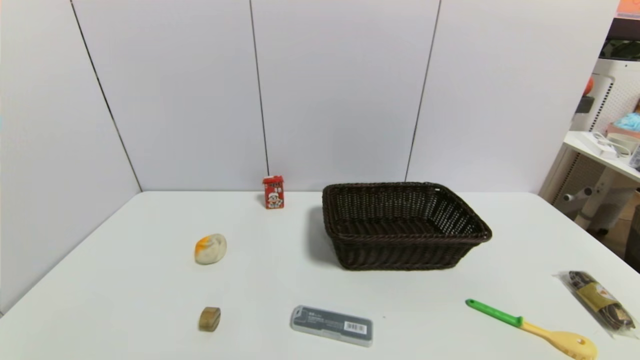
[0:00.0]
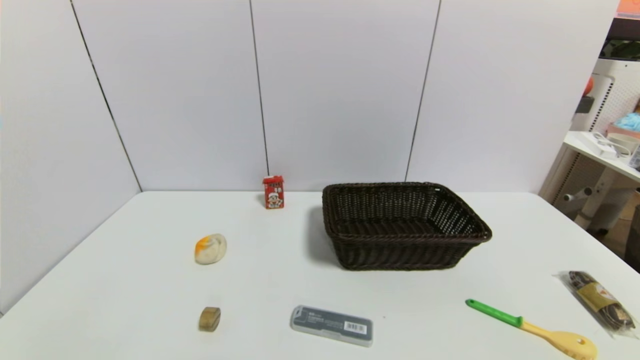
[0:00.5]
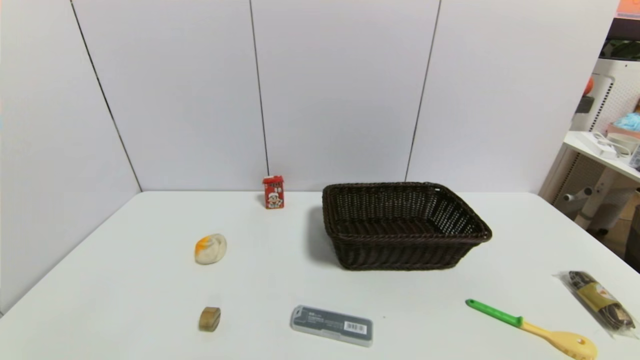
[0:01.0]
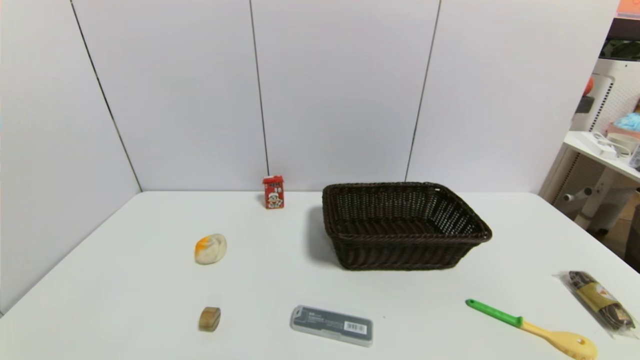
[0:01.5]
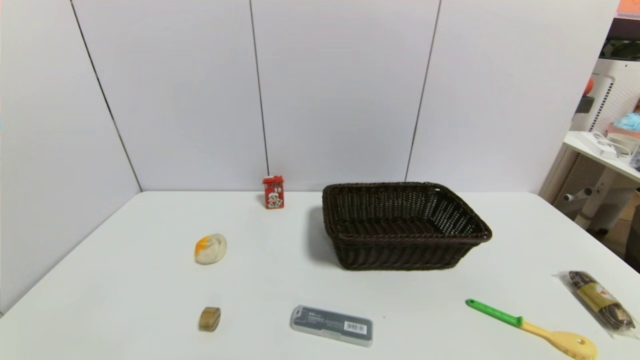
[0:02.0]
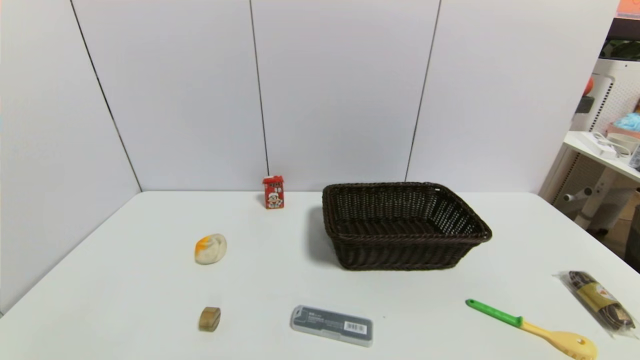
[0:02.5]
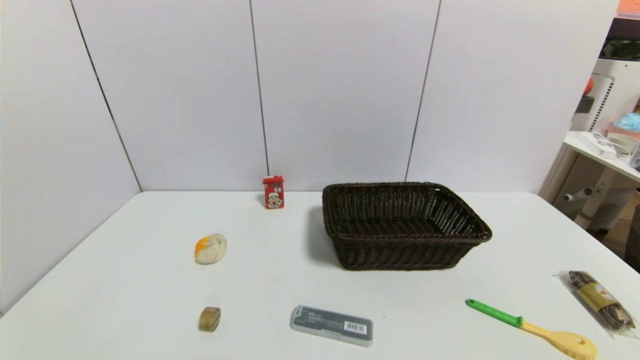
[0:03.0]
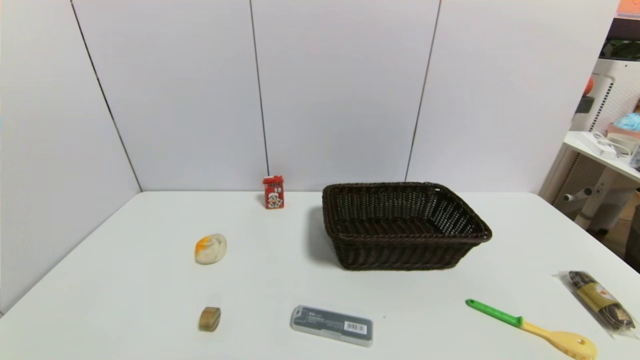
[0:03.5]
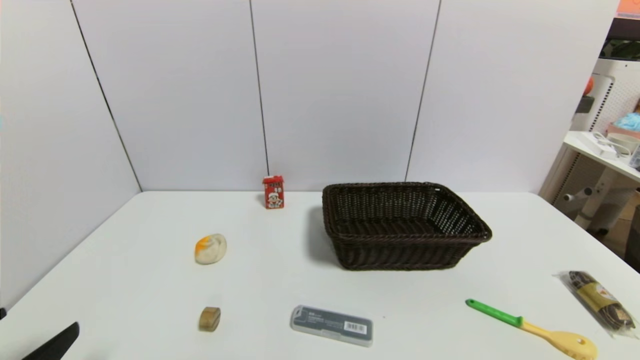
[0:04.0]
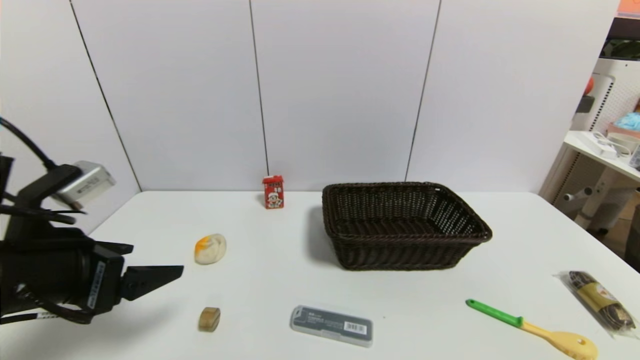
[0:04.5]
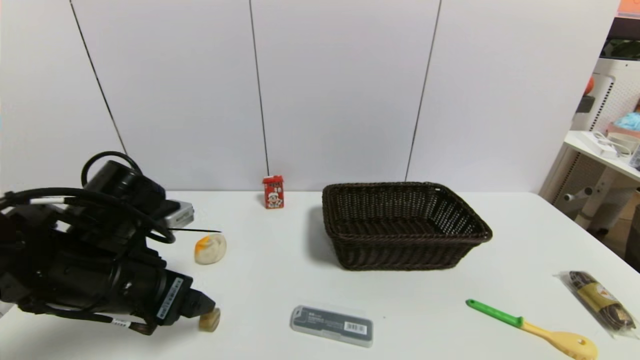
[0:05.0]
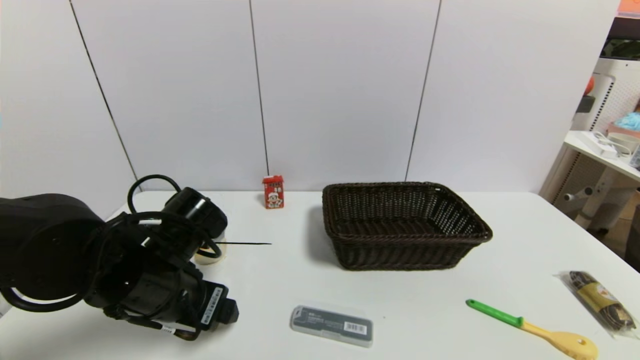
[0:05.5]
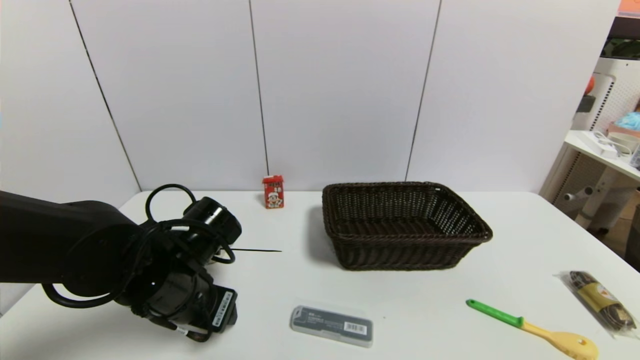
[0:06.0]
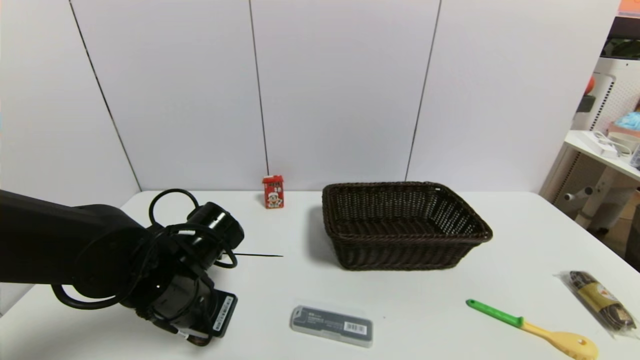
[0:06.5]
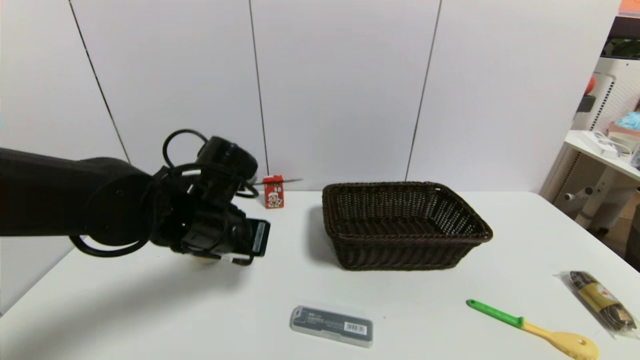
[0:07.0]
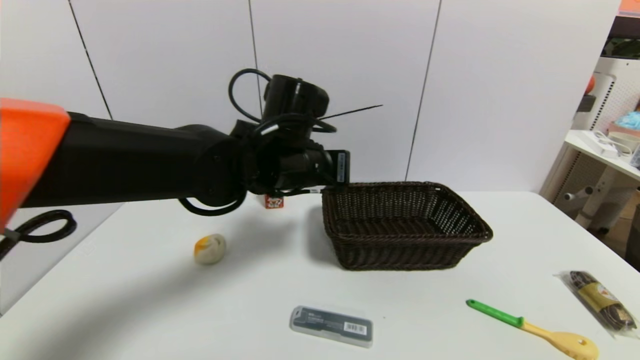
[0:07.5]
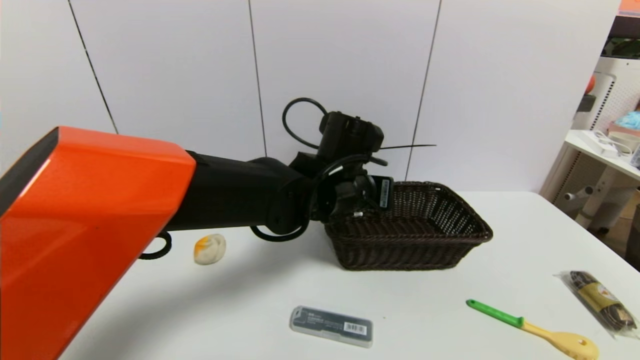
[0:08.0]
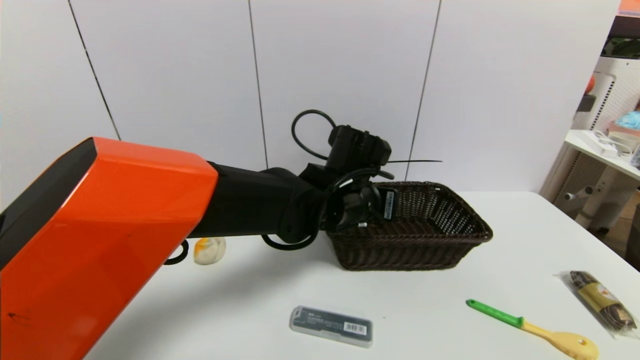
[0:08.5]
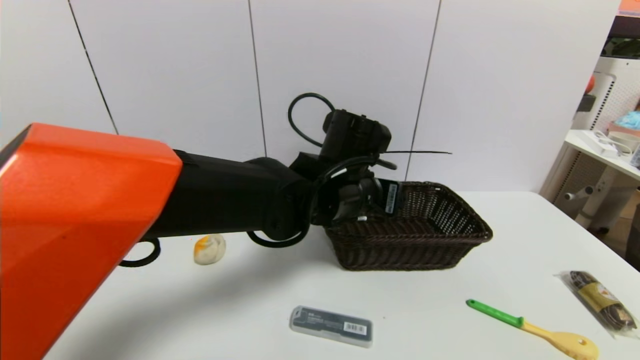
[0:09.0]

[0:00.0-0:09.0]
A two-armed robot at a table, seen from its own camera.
Task of the whole recording: use a gripper to pick the target object and place on the brown basket.
Step, 0:00.0 to 0:06.0: Grasp the round wooden block with the left gripper.
Step, 0:06.5 to 0:08.5: Place the round wooden block into the basket with the left gripper.
0:00.0 to 0:02.0: Both grippers stay about where they are.
0:02.0 to 0:04.5: The left gripper goes roughly 25 cm forward and upward.
0:04.5 to 0:07.0: The left gripper shifts roughly 15 cm to the right and forward, and closes.
0:07.0 to 0:09.0: The left gripper is displaced to the right by about 15 cm, and opens.

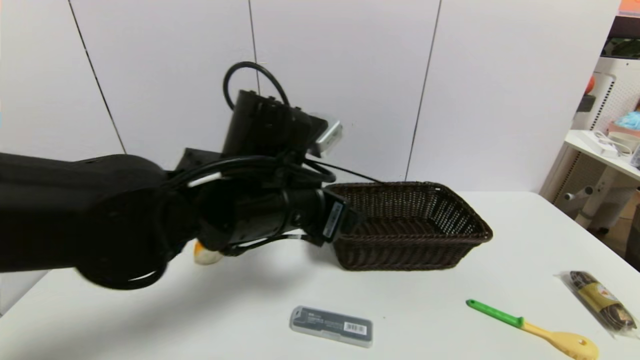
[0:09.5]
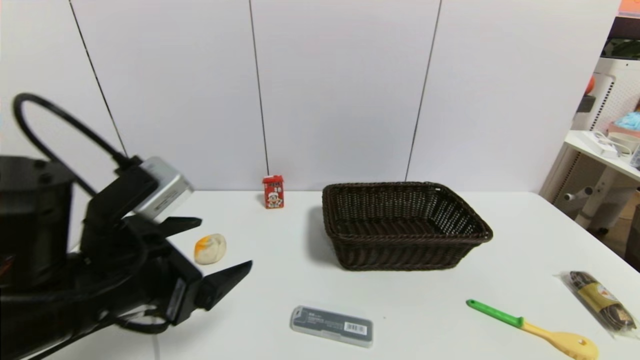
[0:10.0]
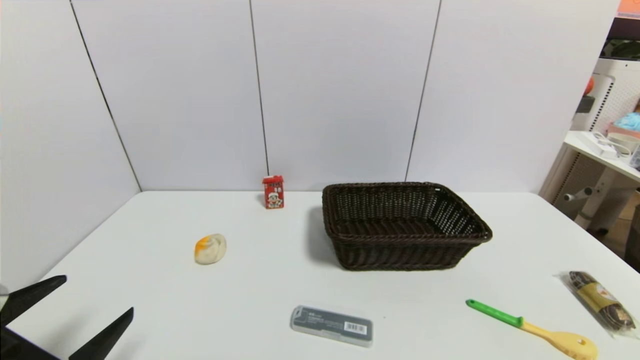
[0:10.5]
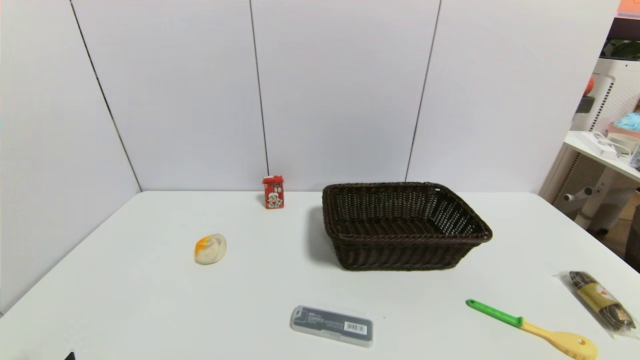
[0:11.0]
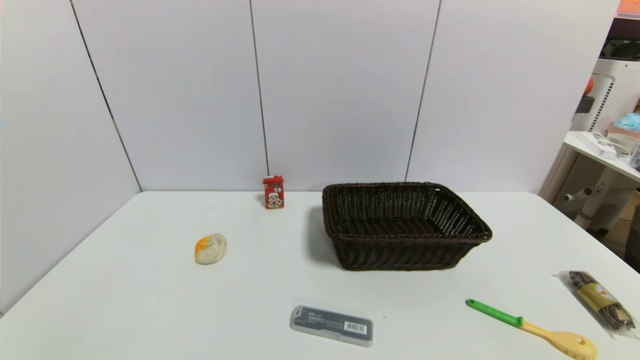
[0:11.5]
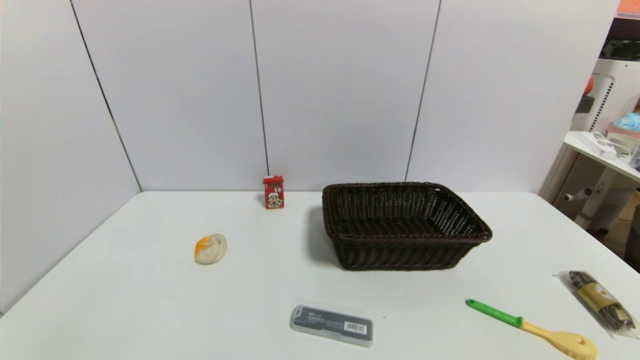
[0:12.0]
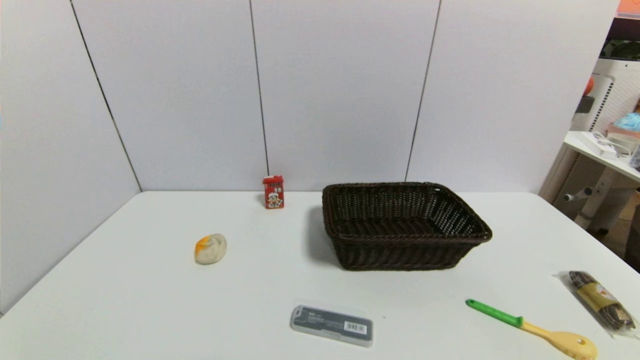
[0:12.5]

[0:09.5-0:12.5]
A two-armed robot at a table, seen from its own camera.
Task of the whole recording: use a gripper to pick the target object and place on the brown basket.
0:09.5 to 0:11.0: The left gripper is displaced to the left, backward and downward by roughly 35 cm.

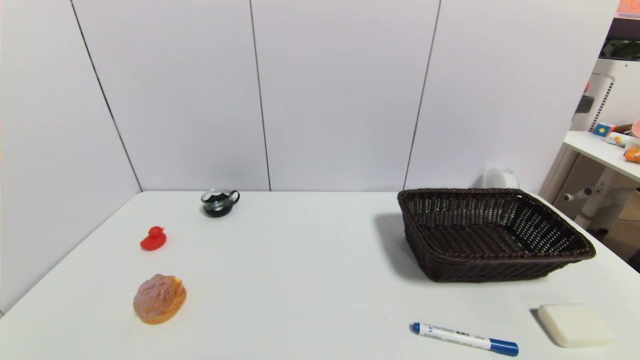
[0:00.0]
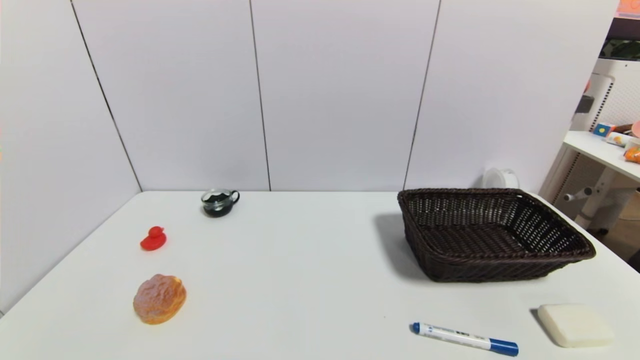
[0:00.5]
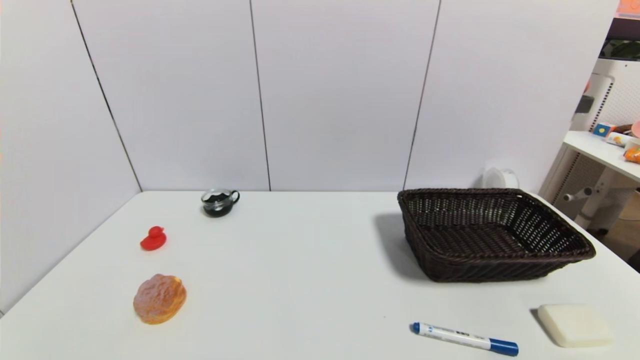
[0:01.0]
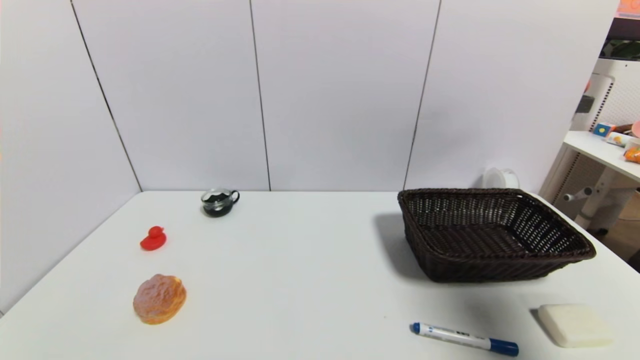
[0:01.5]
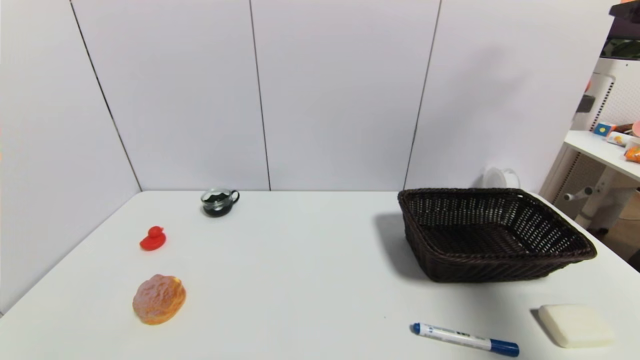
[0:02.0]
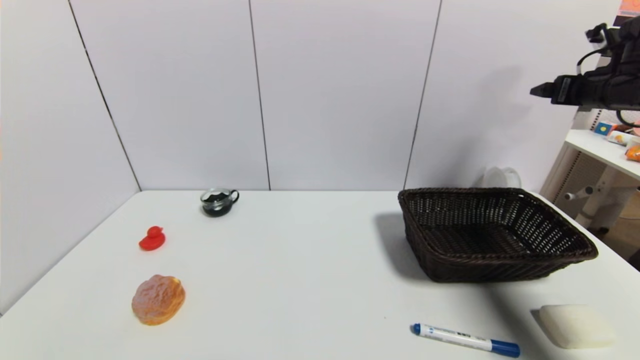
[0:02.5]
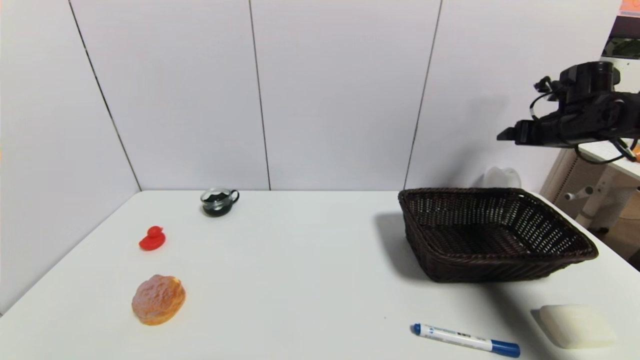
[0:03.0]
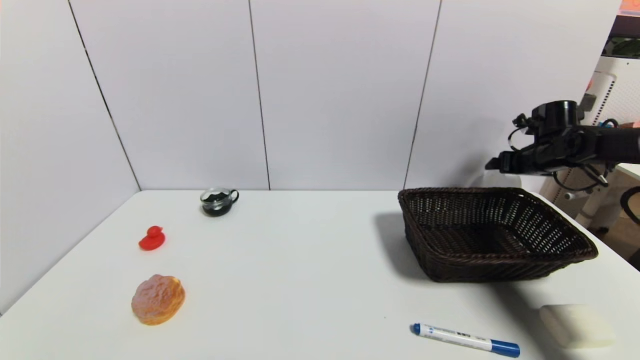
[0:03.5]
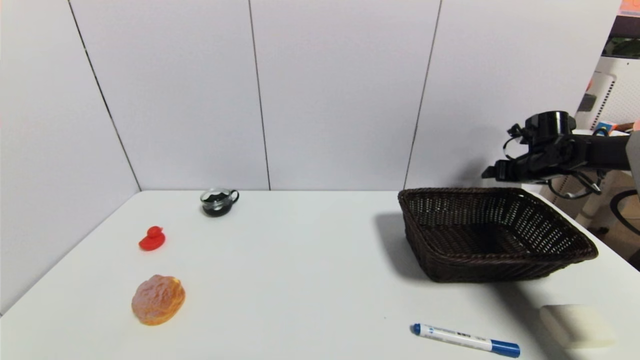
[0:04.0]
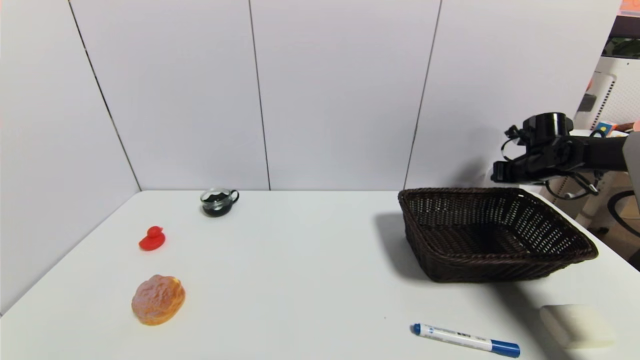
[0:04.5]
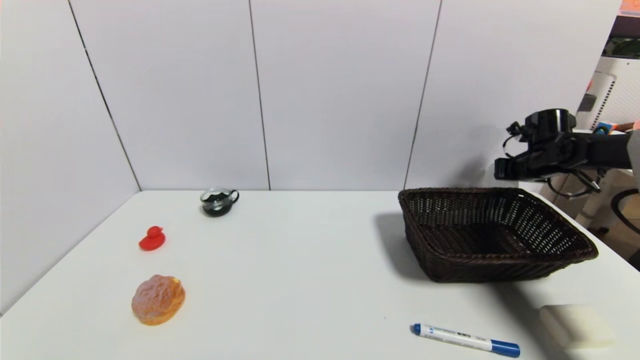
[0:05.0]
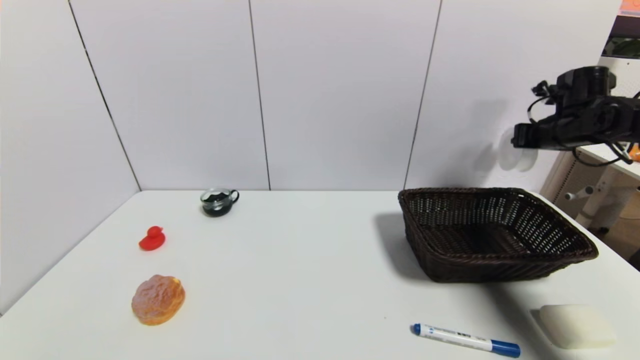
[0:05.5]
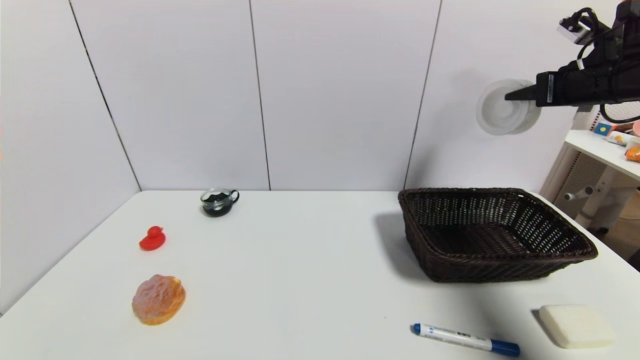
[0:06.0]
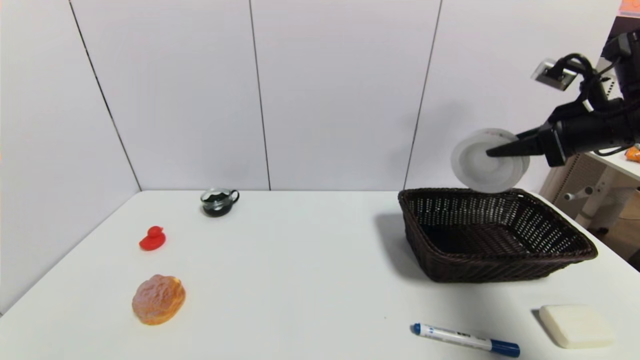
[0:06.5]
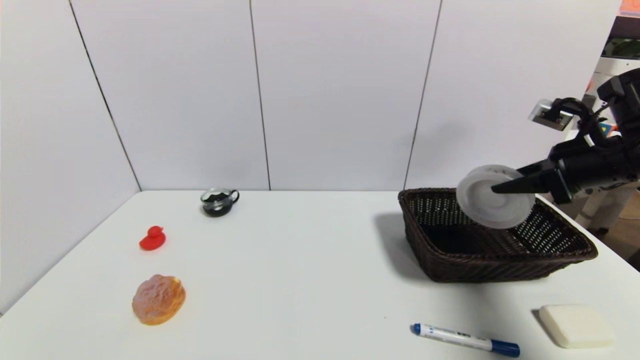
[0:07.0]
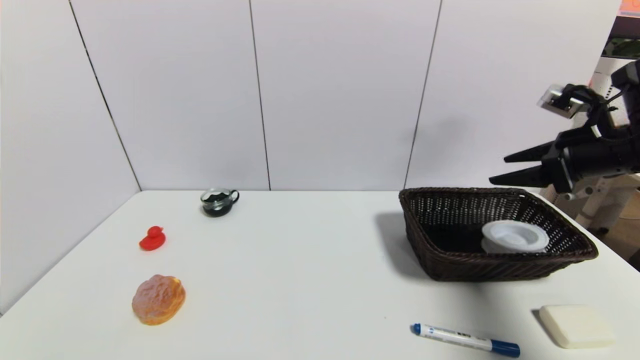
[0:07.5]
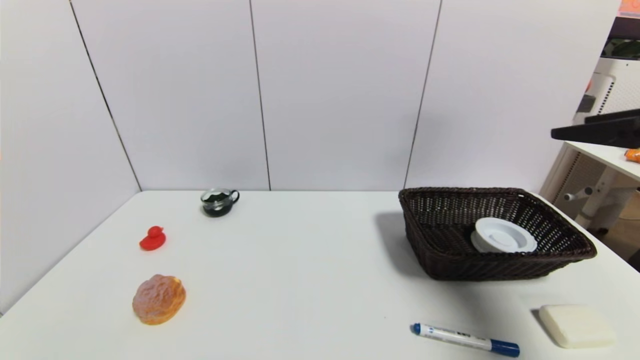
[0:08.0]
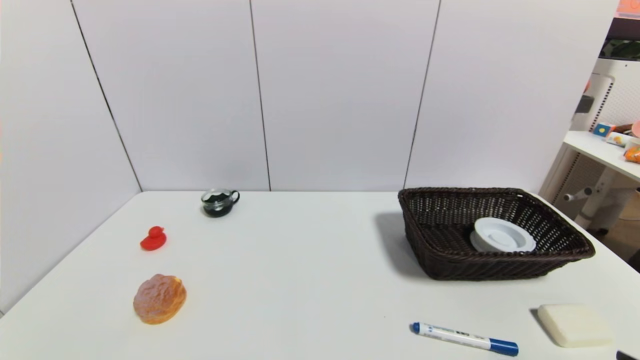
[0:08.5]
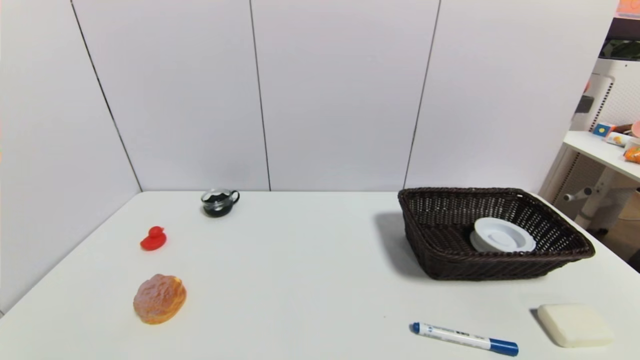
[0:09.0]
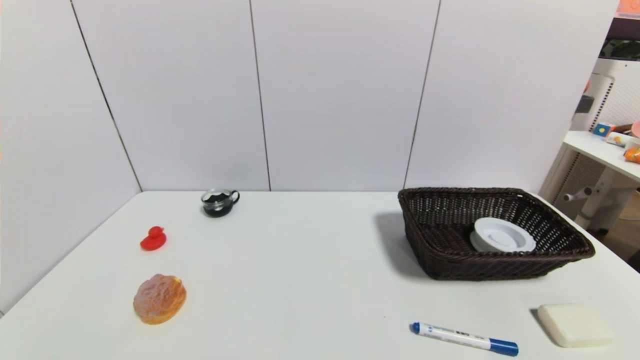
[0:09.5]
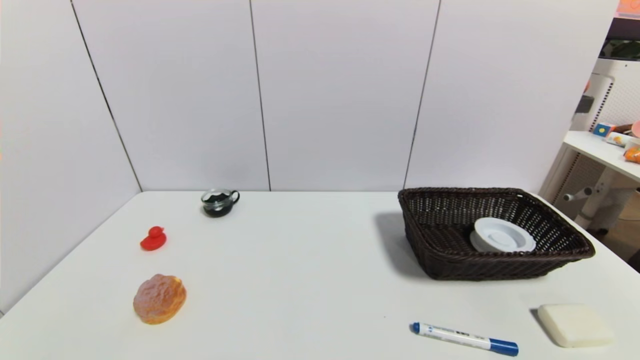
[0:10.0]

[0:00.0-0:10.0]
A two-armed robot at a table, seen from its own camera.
Task of the whole recording: use a gripper to pick the target object and place on the brown basket.
Step, 0:00.0 to 0:04.5: Grasp the tape with the right gripper.
Step, 0:05.0 to 0:07.0: Place the tape into the basket with the right gripper.
0:00.0 to 0:02.0: The right gripper goes approximately 40 cm upward and forward.
0:02.0 to 0:04.0: The right gripper is displaced downward and forward by some 30 cm.
0:04.0 to 0:06.0: The right gripper goes roughly 25 cm upward and backward, and closes.
0:06.0 to 0:08.0: The right gripper shifts approximately 20 cm backward, and opens up.
0:08.0 to 0:10.0: The right gripper goes approximately 30 cm downward and backward.
